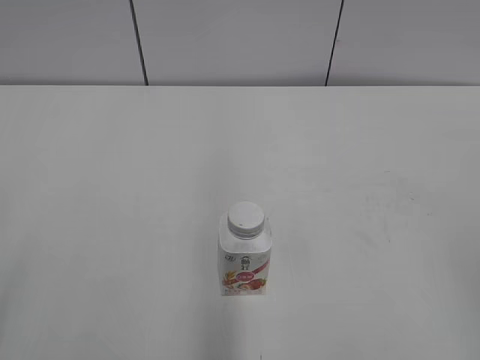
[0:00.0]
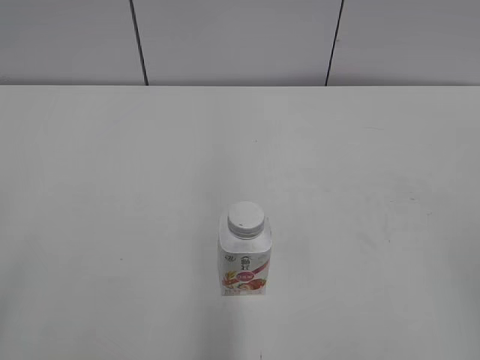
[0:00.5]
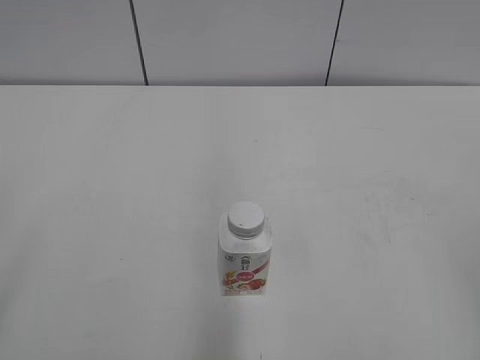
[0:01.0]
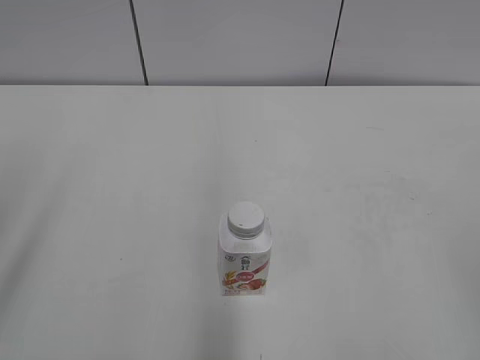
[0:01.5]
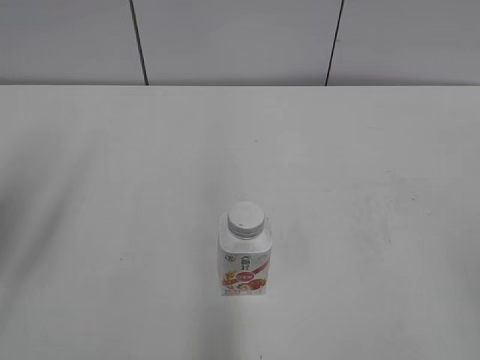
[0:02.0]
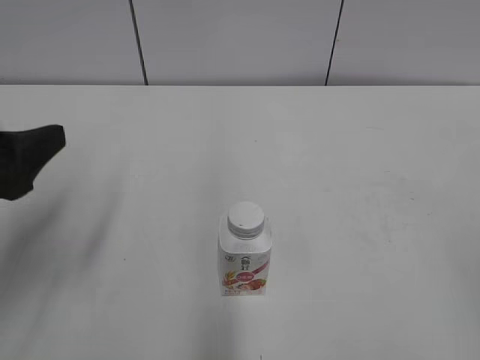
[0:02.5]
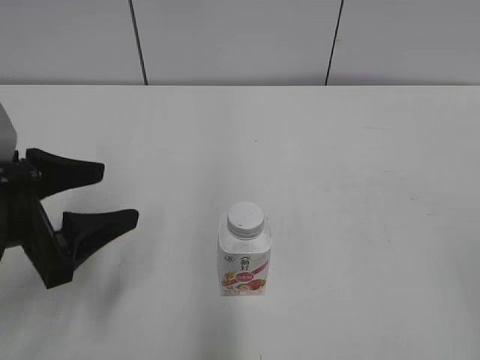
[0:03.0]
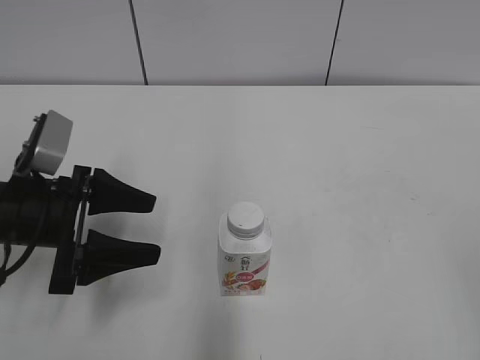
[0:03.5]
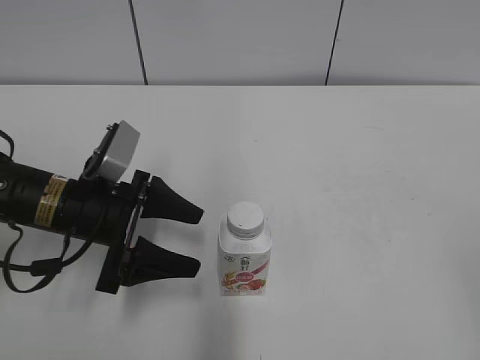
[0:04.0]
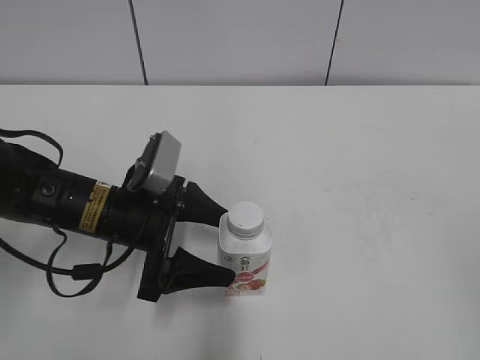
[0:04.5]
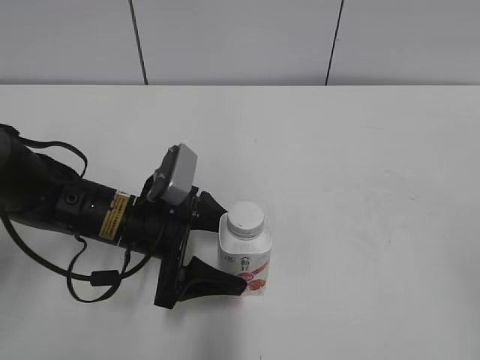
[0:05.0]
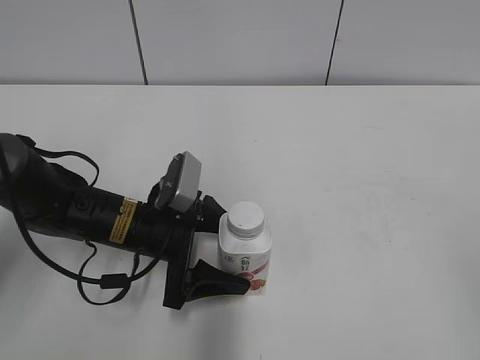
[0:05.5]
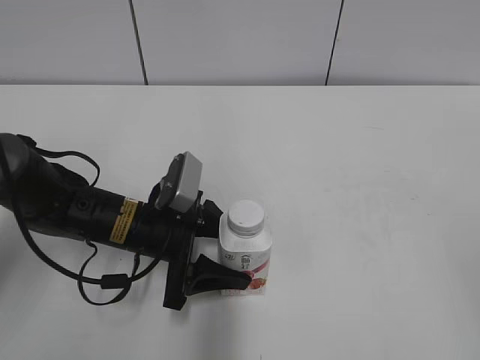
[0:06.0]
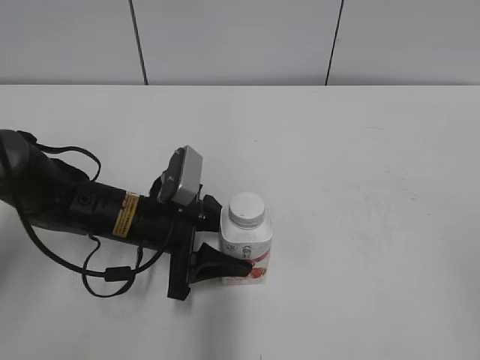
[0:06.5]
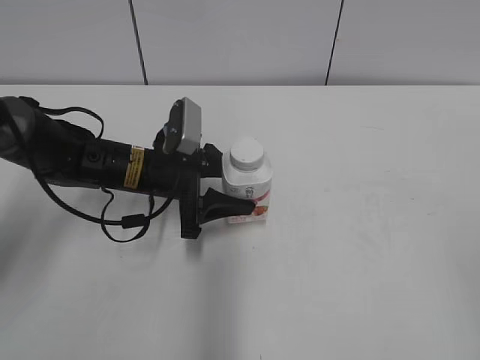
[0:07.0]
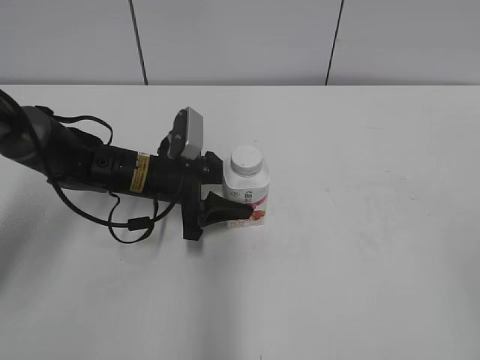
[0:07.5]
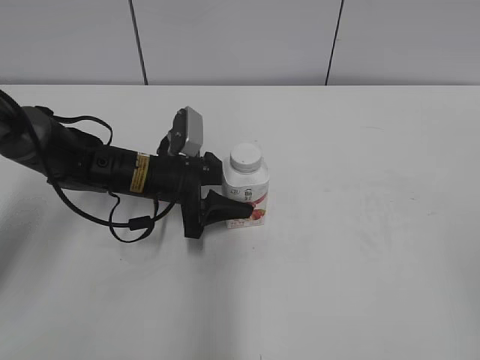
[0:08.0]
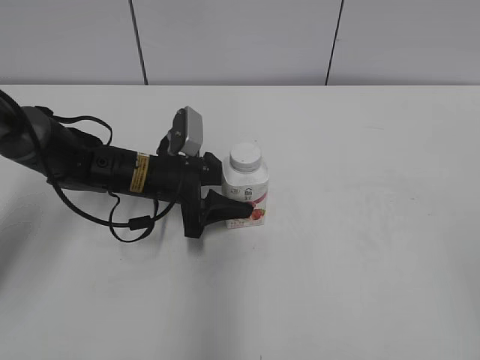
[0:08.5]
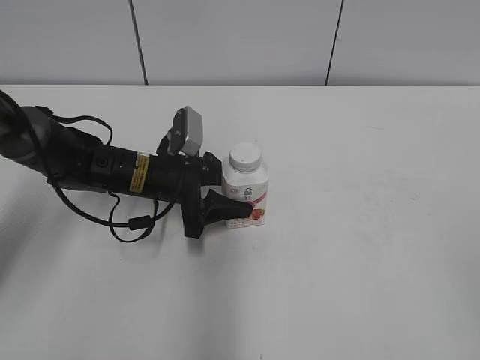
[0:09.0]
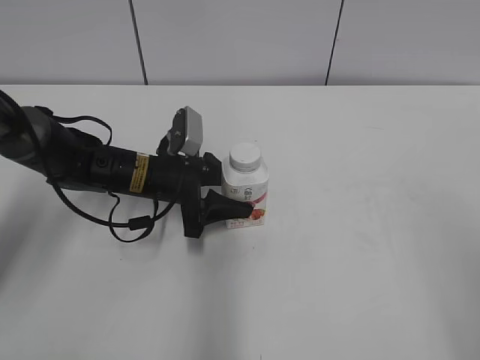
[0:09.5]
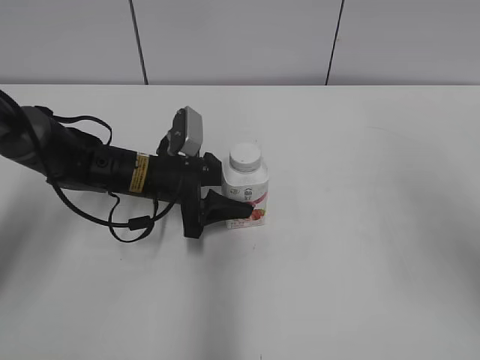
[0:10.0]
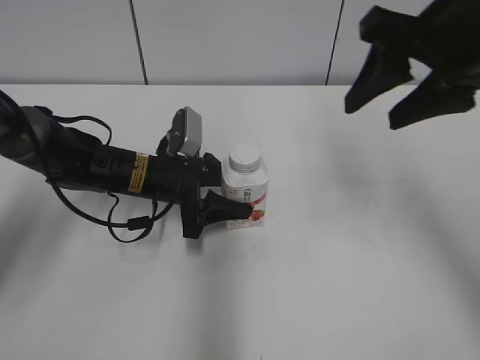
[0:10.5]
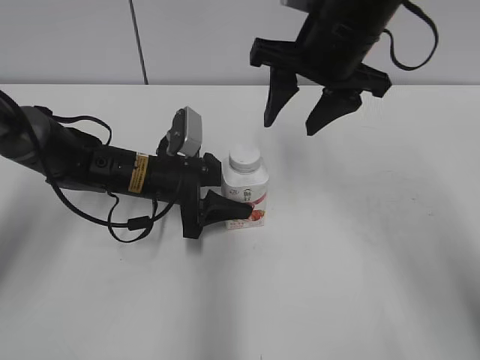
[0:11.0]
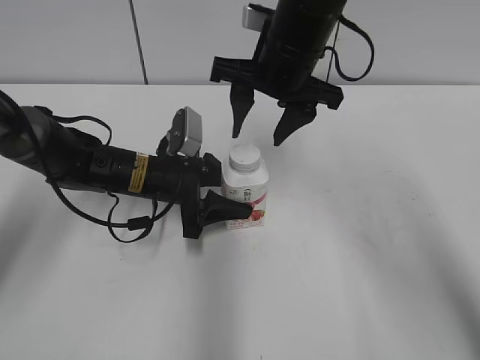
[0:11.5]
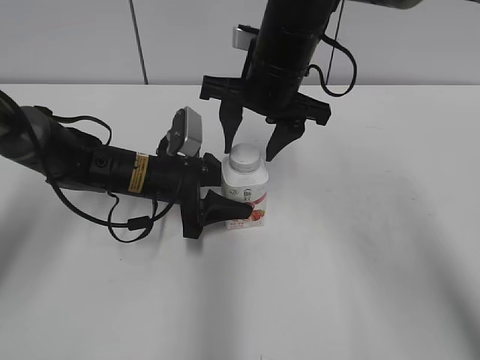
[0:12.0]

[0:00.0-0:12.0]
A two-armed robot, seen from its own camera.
Step, 0:00.0 to 0:06.0: Grab the Yili Changqing with the left hand.
Step, 0:06.5 to 0:07.5: Move the Yili Changqing from left to right.
0:02.0 to 0:04.0: The left gripper goes roughly 25 cm downward, to the right and forward.
0:04.0 to 0:06.0: The left gripper heads to the right, covering about 5 cm.
0:06.0 to 0:08.0: The left gripper is displaced forward by roughly 10 cm, and closes.
0:08.0 to 0:10.0: The right gripper is displaced forward by about 15 cm.
0:10.0 to 0:12.0: The right gripper moves to the left, forward and downward, about 30 cm.

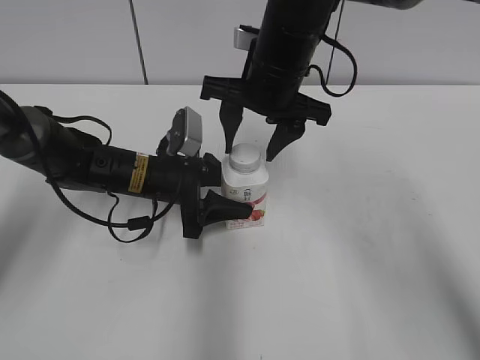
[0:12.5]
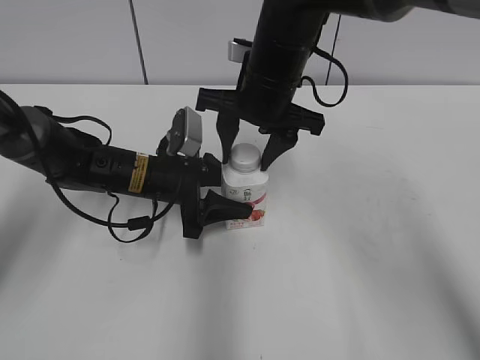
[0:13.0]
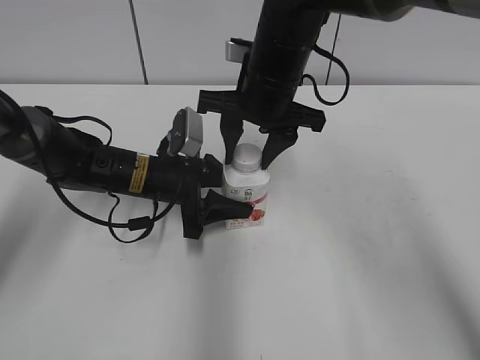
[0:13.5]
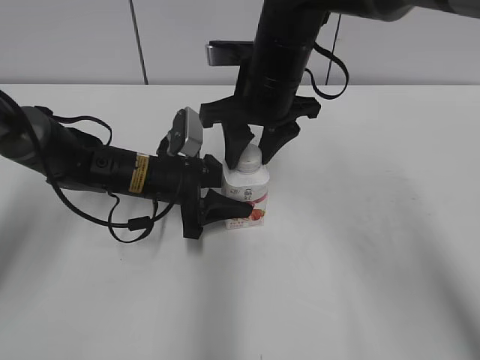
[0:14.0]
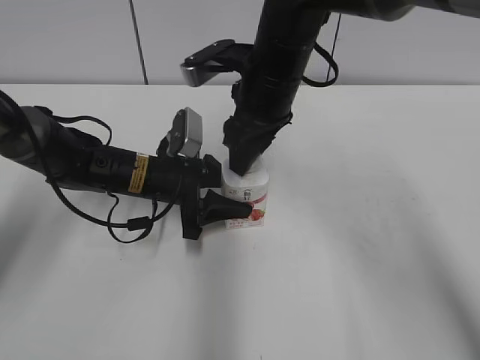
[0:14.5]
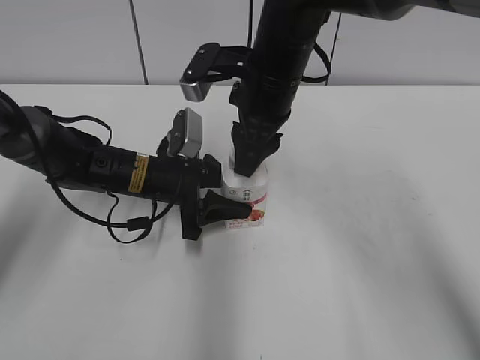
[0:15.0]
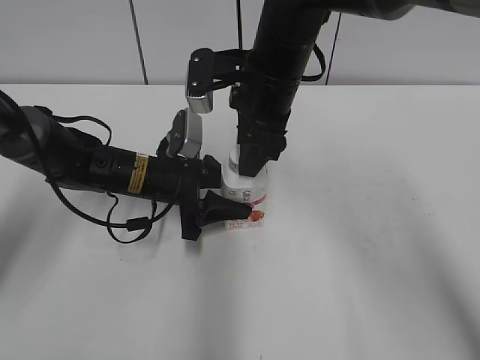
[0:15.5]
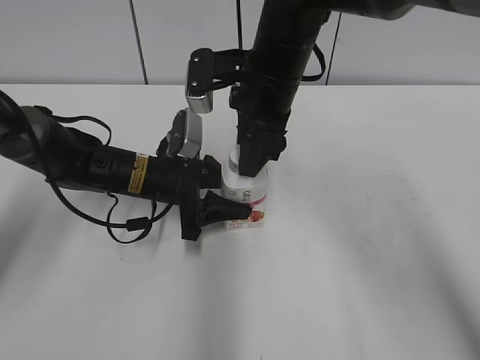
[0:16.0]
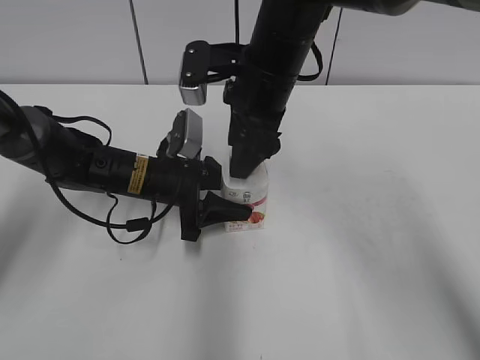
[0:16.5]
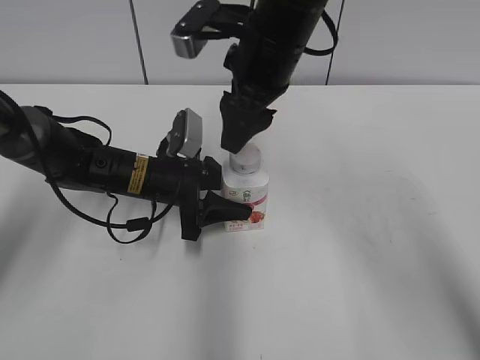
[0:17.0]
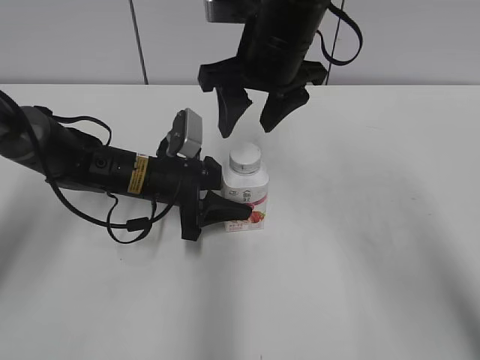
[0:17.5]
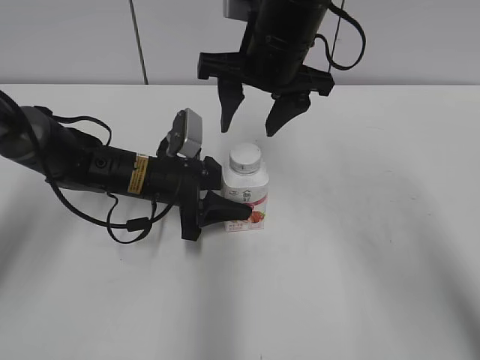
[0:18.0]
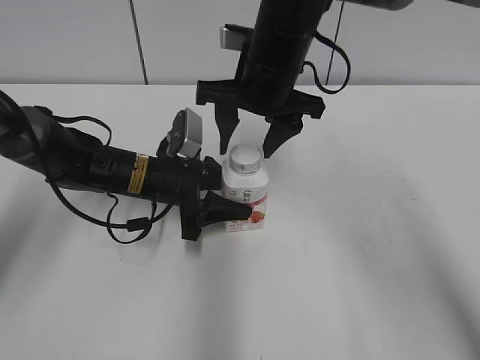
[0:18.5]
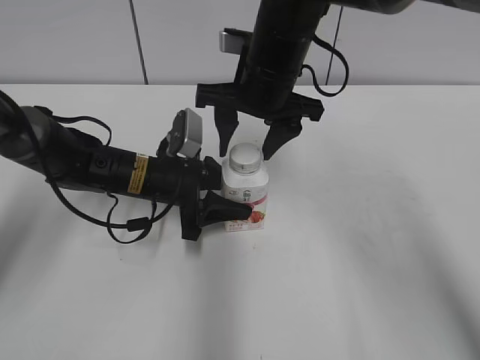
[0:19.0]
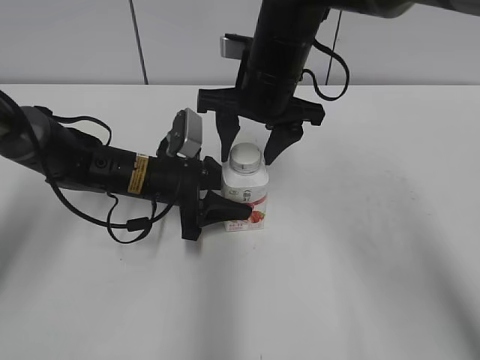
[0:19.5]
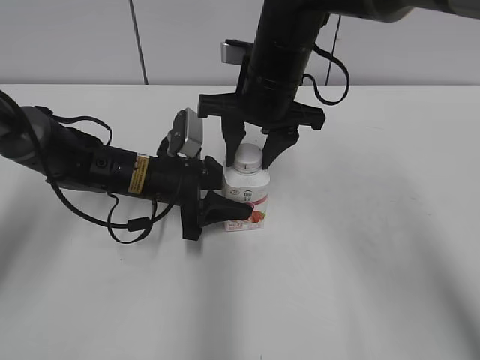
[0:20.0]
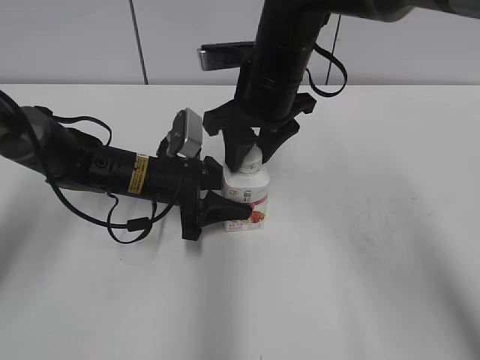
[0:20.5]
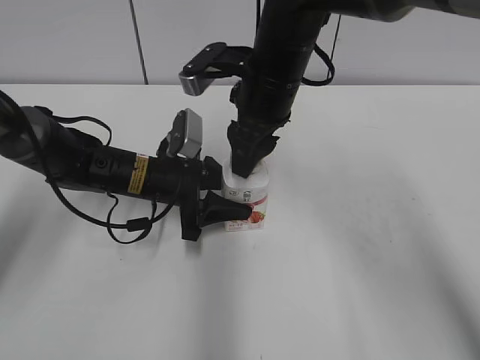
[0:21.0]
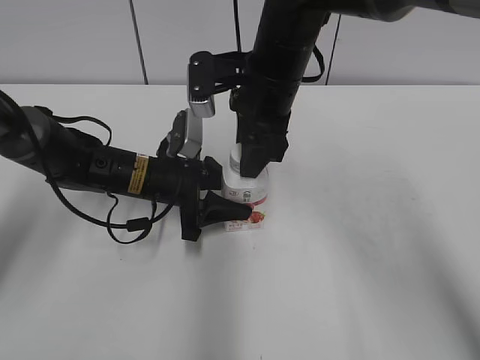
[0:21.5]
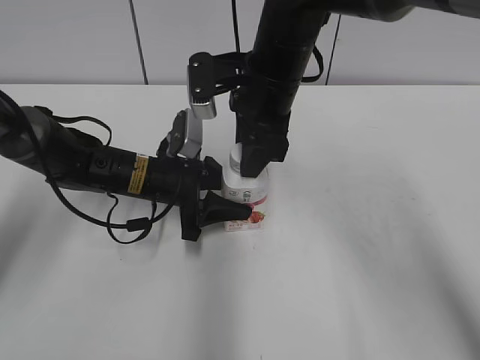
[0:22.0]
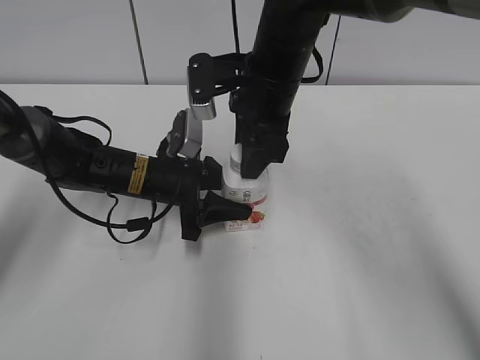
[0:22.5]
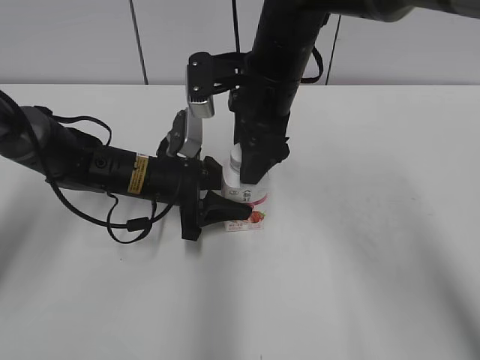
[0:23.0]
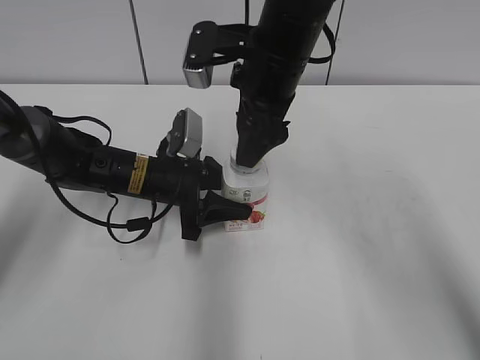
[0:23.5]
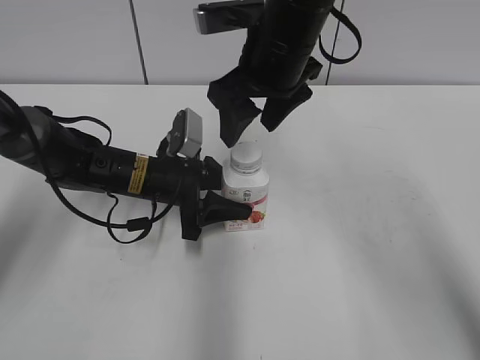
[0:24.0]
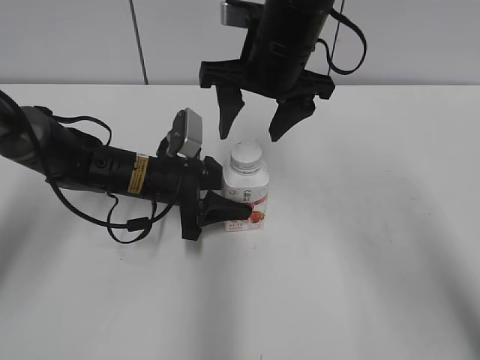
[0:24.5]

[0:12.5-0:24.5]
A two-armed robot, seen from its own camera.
0:12.5 to 0:14.5: The right gripper closes its fingers.
0:14.5 to 0:16.5: The right gripper opens up.
0:18.5 to 0:20.5: The right gripper closes up.
0:22.5 to 0:24.5: The right gripper opens its fingers.

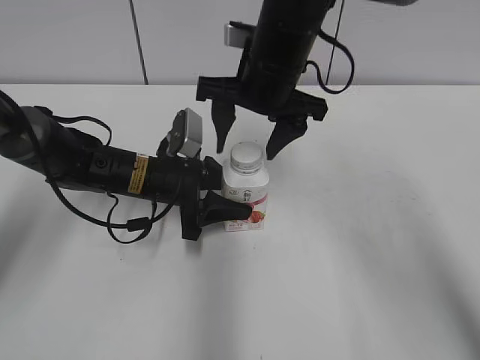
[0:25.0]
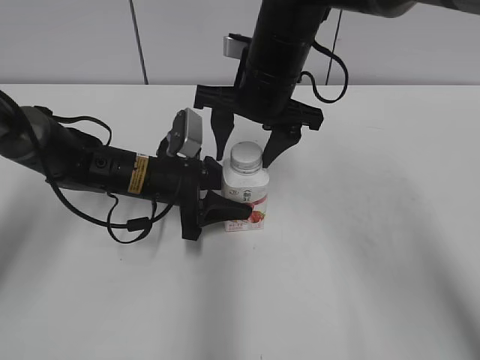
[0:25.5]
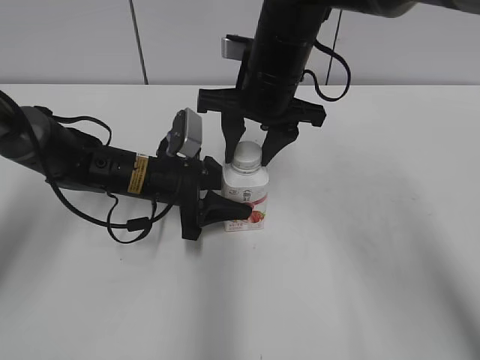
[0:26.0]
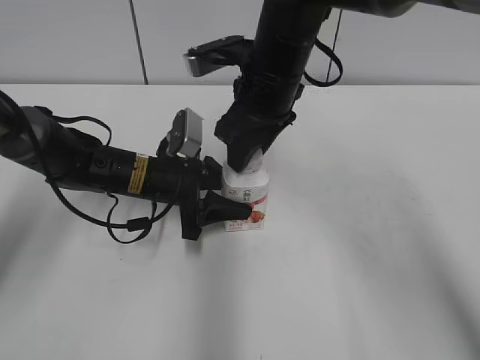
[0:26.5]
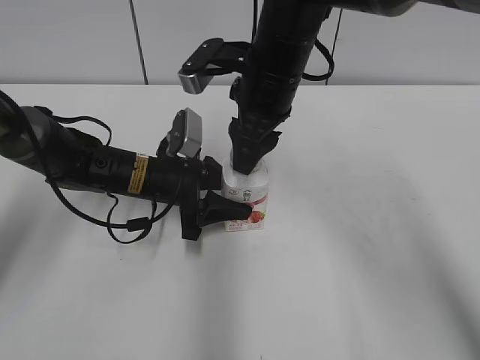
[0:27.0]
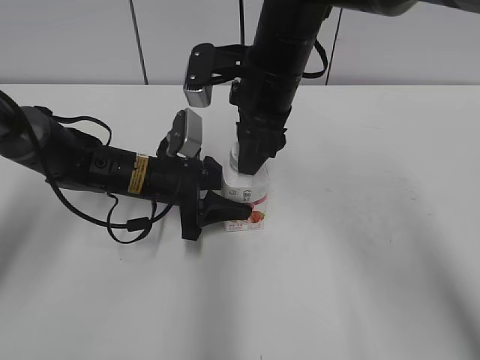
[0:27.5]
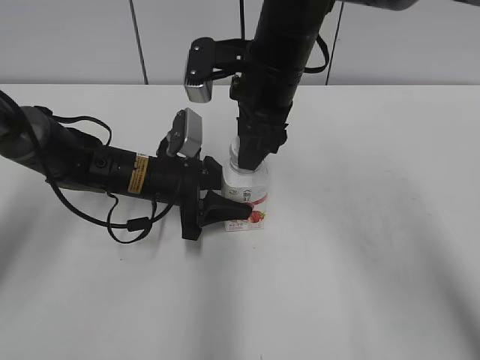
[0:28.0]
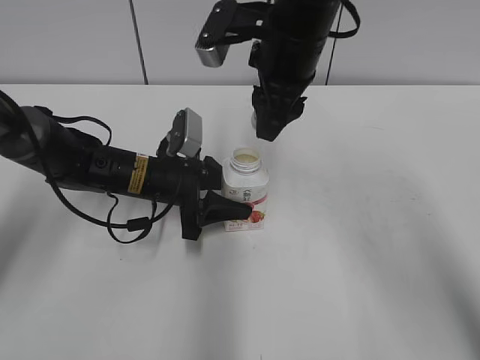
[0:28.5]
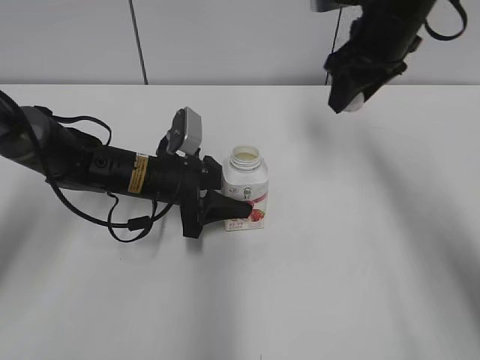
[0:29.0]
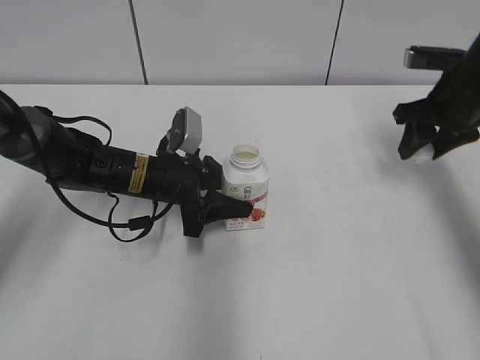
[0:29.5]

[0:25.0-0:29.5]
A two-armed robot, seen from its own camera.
0:25.0 to 0:27.0: The right gripper closes up.
0:27.0 to 0:29.5: The right gripper is displaced to the right by roughly 25 cm.
